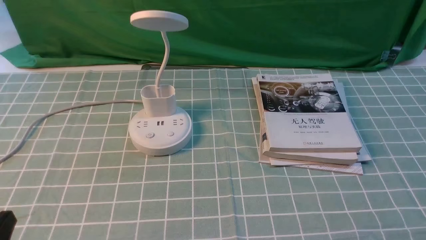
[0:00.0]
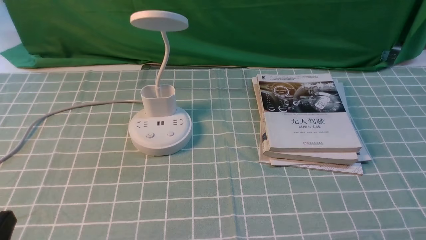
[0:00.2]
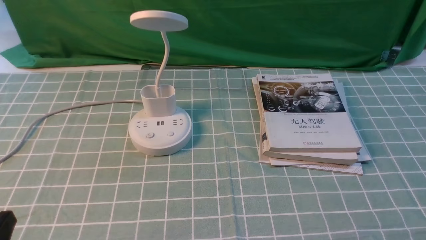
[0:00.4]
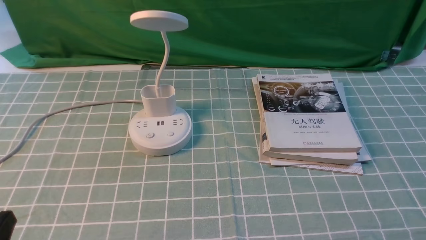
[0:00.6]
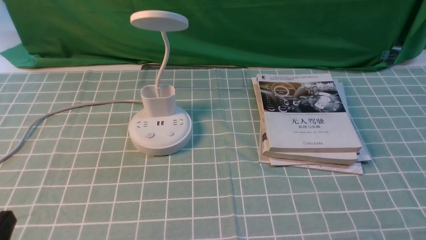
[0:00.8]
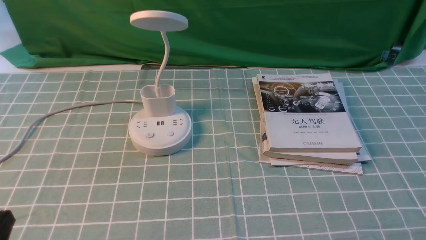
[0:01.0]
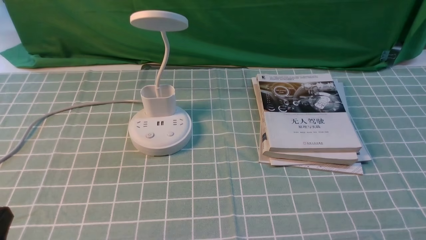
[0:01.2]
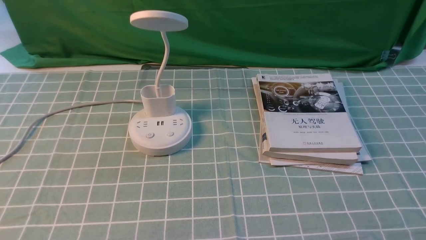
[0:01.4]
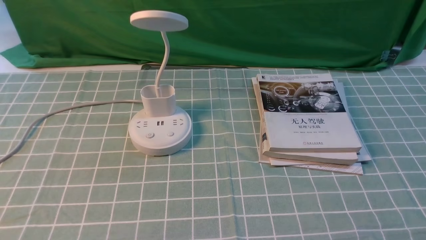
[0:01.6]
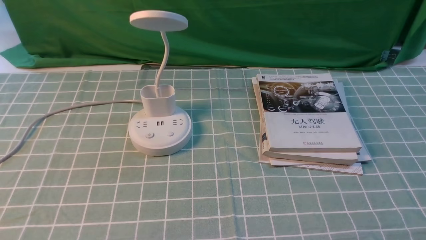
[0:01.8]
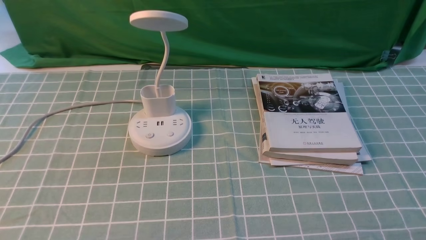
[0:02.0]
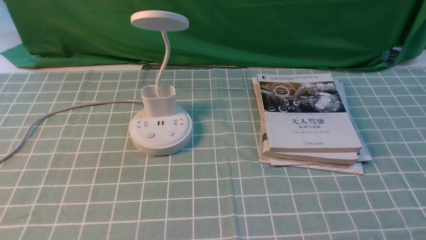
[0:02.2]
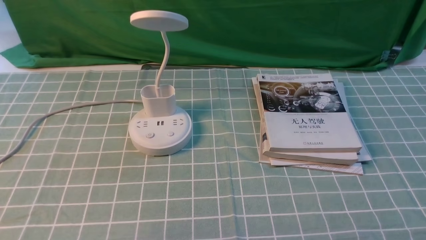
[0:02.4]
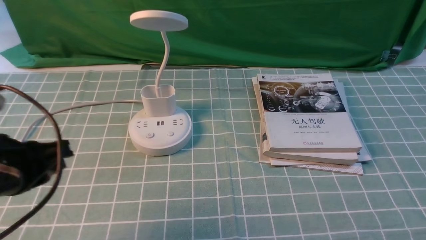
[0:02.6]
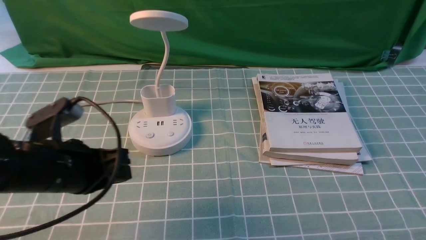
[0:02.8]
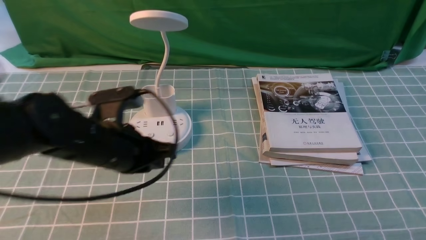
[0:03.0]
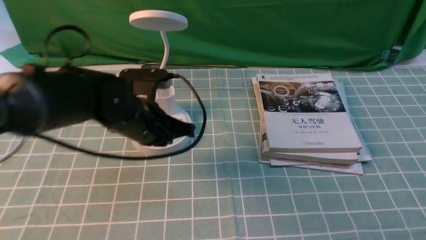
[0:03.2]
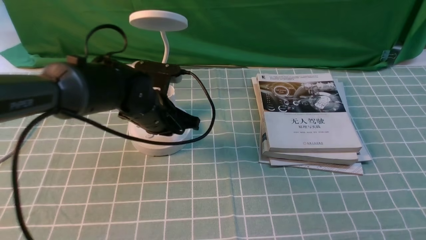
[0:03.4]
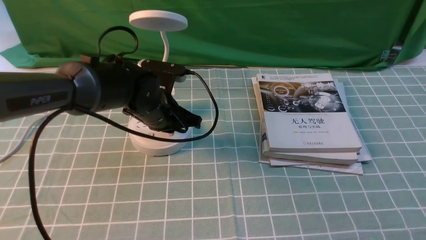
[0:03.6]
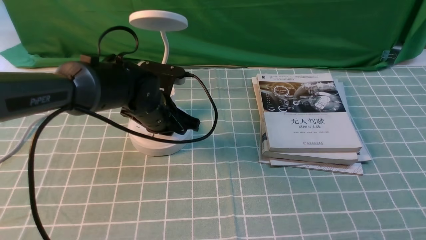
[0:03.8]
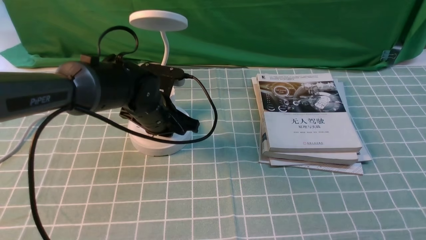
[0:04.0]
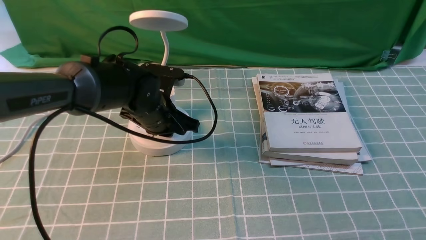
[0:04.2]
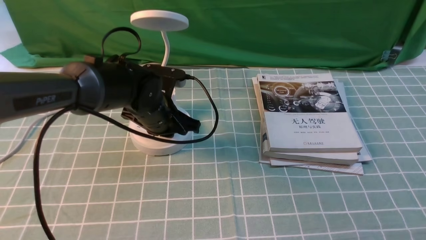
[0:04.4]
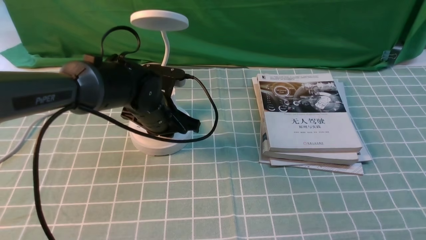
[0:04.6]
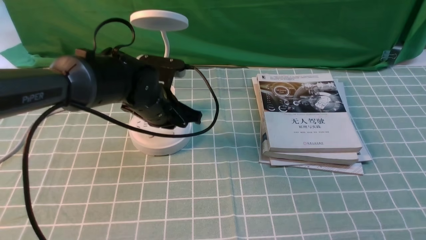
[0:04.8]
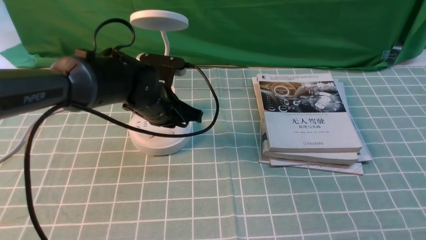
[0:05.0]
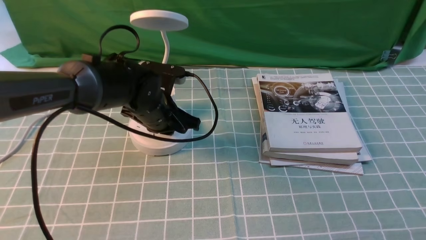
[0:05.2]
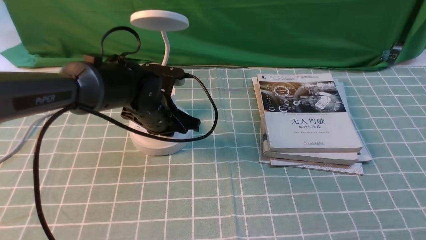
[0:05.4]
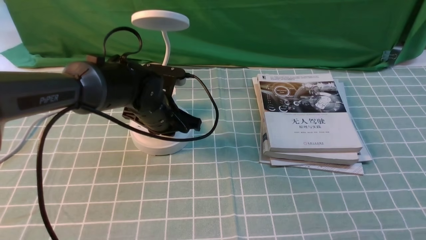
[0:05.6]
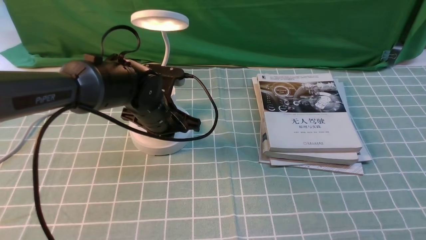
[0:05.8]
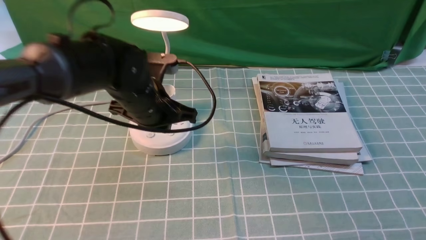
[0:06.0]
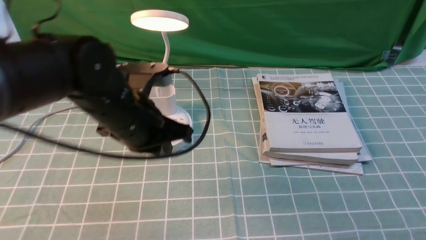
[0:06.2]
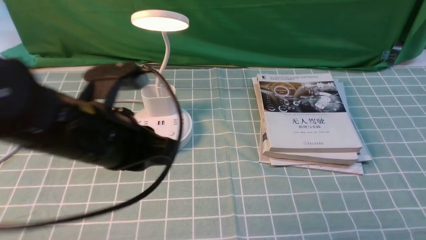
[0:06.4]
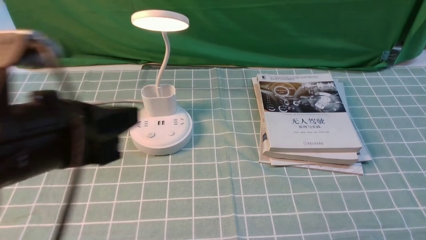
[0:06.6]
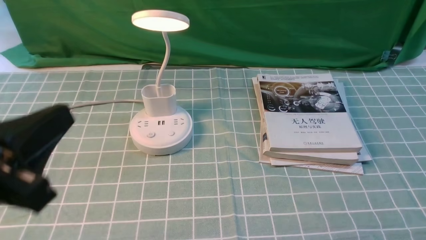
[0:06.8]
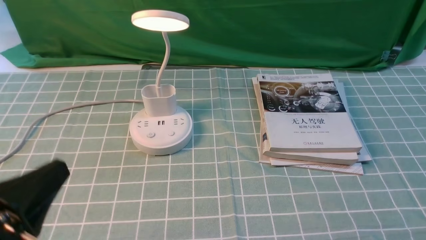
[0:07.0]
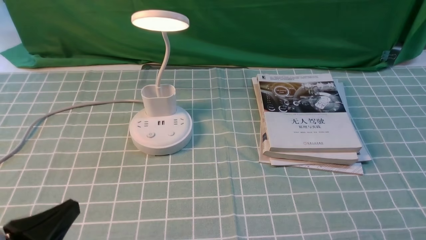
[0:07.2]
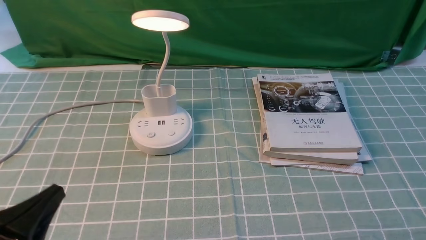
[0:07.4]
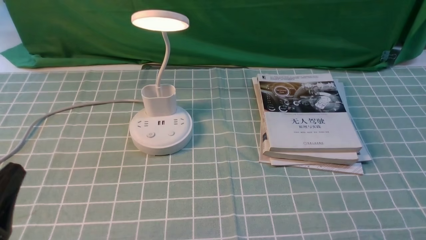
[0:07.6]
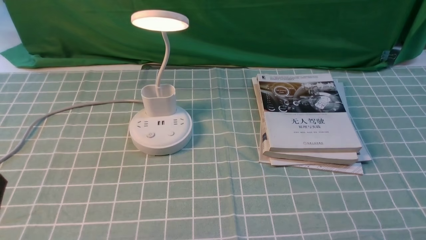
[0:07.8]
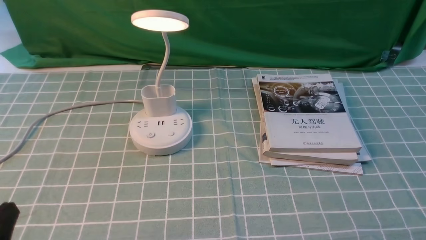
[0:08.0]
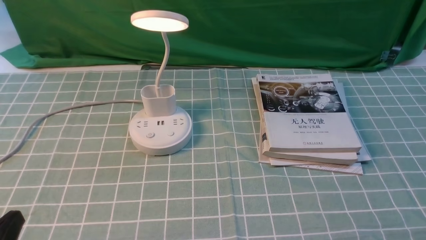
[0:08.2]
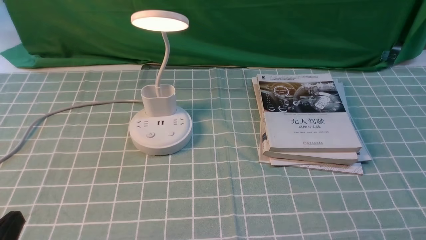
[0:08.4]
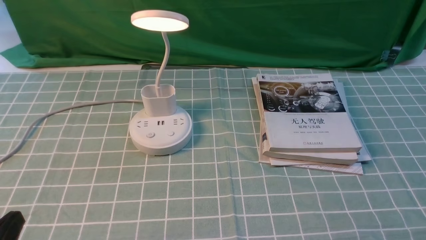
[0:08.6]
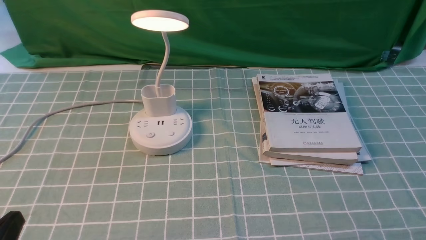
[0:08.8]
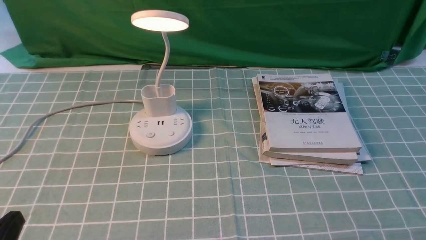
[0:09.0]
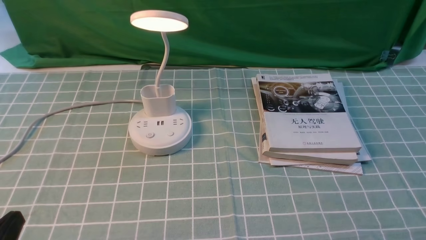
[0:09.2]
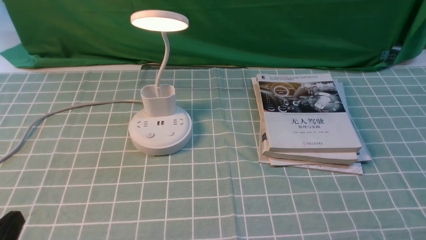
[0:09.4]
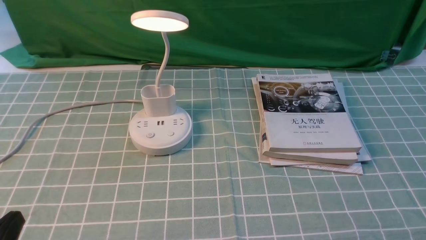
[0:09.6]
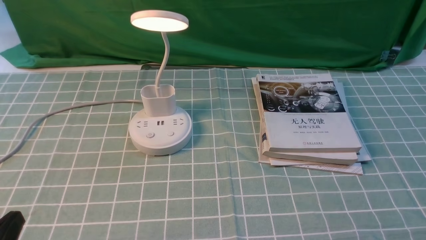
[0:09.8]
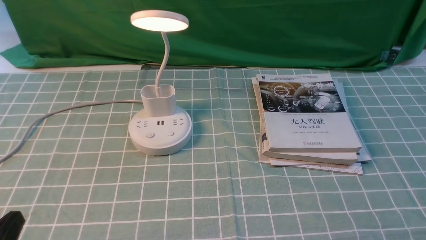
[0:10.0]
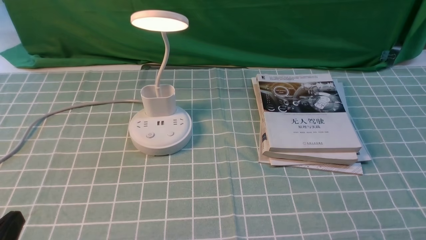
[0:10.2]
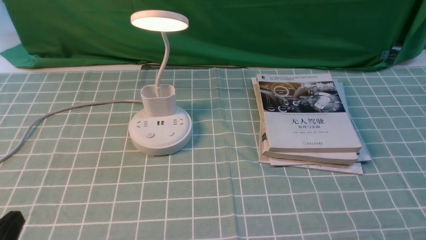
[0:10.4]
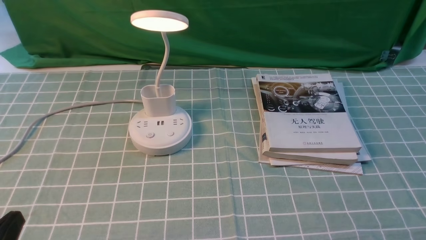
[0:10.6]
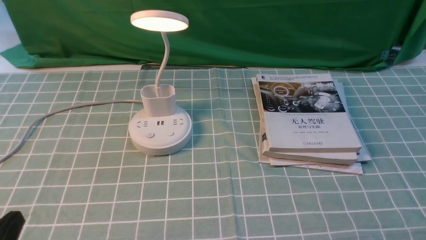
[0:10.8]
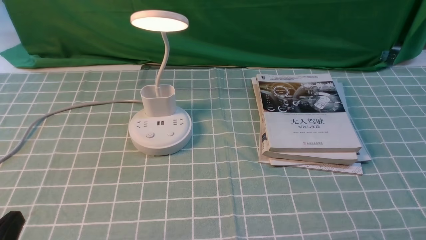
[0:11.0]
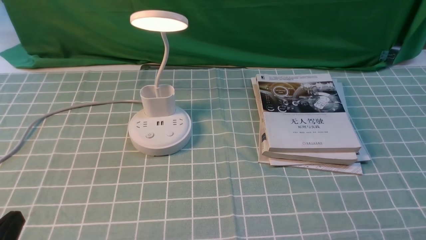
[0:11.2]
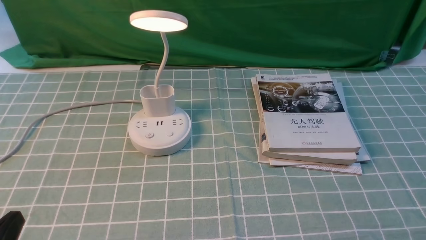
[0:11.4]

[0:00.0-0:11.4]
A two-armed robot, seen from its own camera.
Step, 0:00.0 to 0:06.0: use the left arm to press the button switch on the lamp holder.
0:01.4 to 0:02.8: The left gripper travels forward by roughly 15 cm, and closes its fingers.
0:02.8 to 0:04.2: The left gripper goes about 25 cm forward, to the right and downward, and closes up.
0:04.2 to 0:05.6: The left gripper opens up.
0:05.6 to 0:07.2: The left gripper is displaced backward and to the left by roughly 30 cm.
0:07.2 to 0:08.6: The left gripper travels downward by roughly 5 cm.
0:08.6 to 0:11.4: Both grippers stay about where they are.
